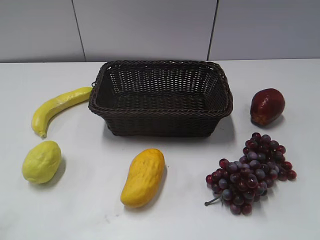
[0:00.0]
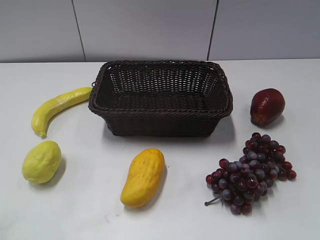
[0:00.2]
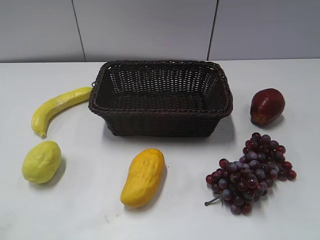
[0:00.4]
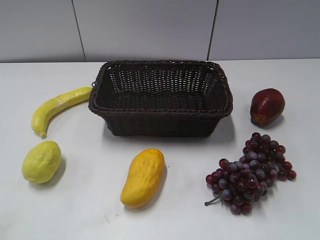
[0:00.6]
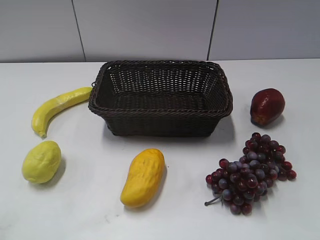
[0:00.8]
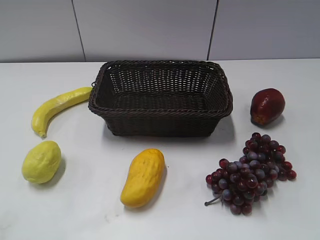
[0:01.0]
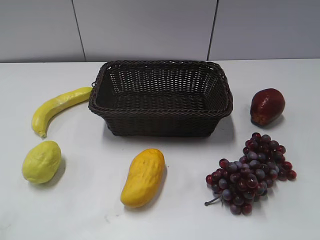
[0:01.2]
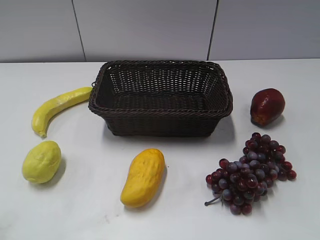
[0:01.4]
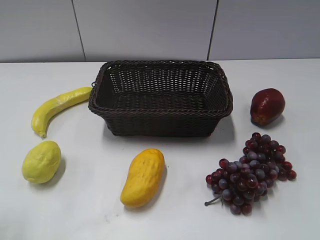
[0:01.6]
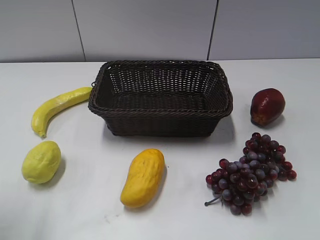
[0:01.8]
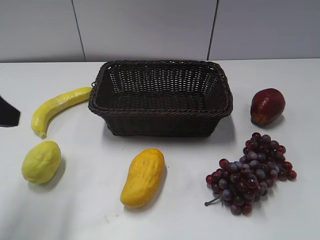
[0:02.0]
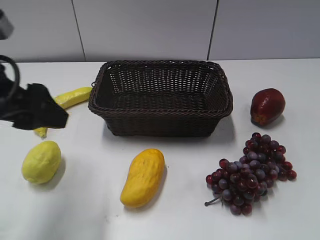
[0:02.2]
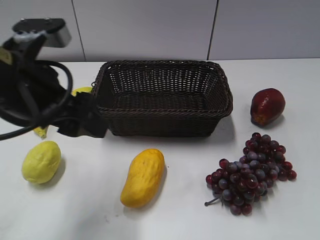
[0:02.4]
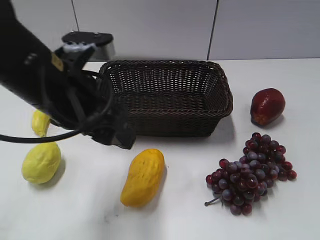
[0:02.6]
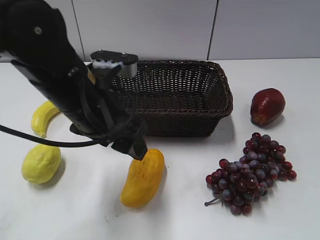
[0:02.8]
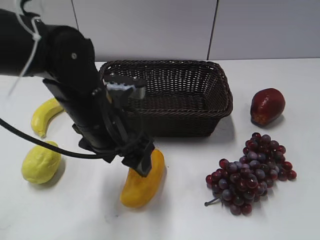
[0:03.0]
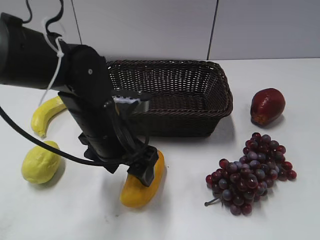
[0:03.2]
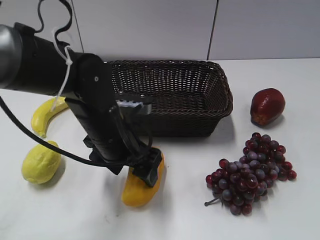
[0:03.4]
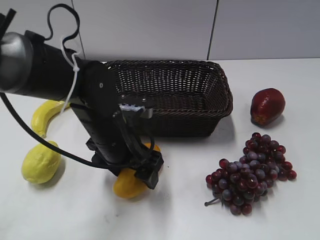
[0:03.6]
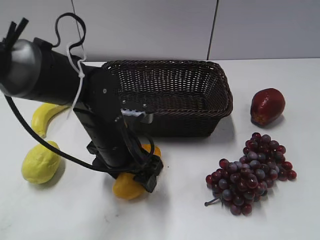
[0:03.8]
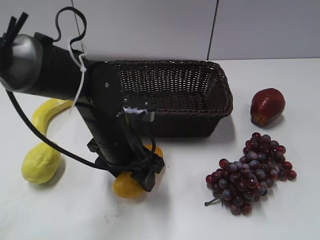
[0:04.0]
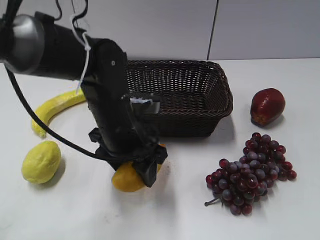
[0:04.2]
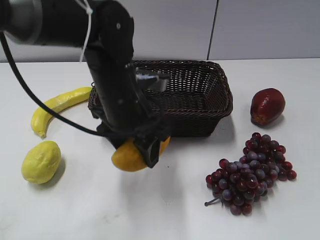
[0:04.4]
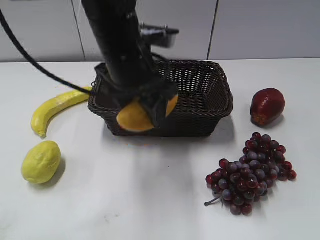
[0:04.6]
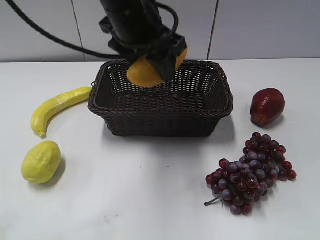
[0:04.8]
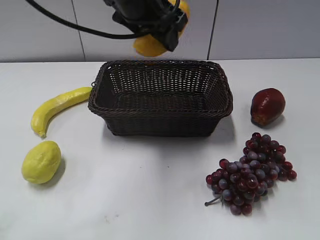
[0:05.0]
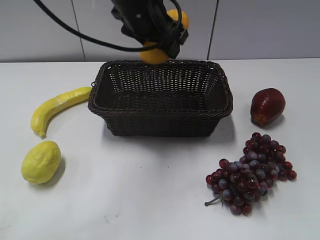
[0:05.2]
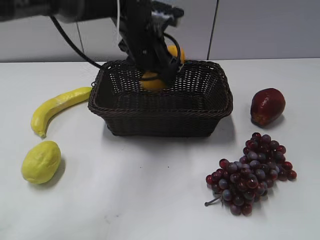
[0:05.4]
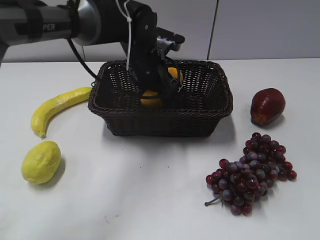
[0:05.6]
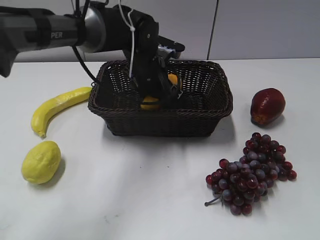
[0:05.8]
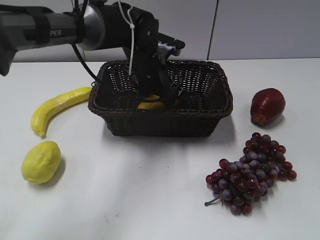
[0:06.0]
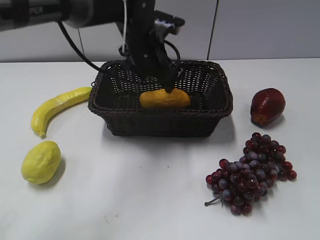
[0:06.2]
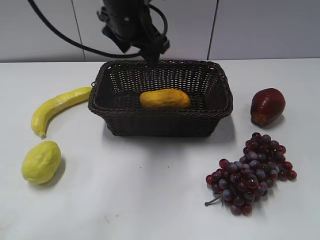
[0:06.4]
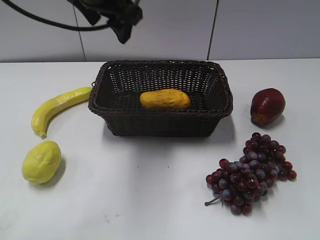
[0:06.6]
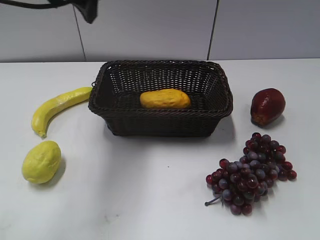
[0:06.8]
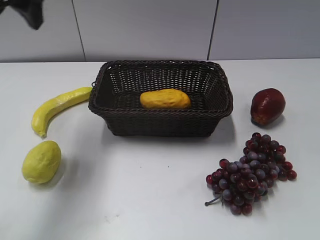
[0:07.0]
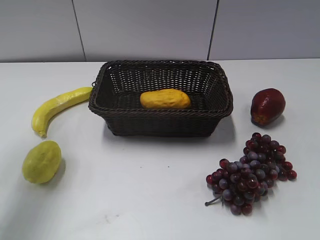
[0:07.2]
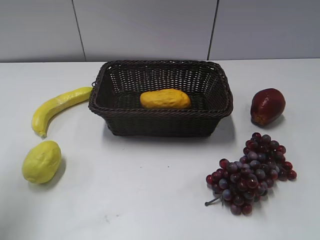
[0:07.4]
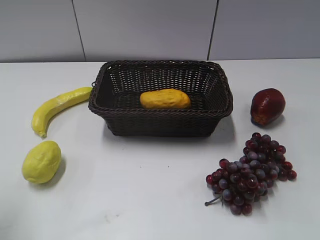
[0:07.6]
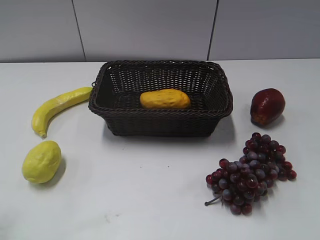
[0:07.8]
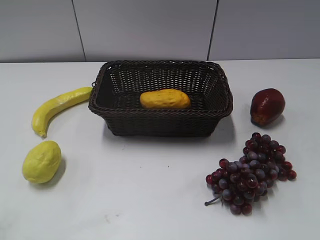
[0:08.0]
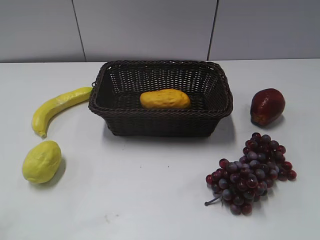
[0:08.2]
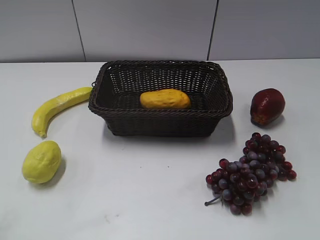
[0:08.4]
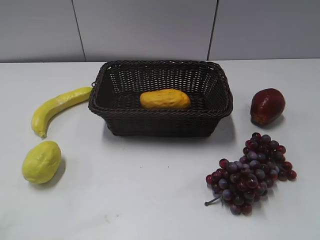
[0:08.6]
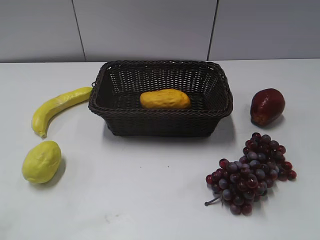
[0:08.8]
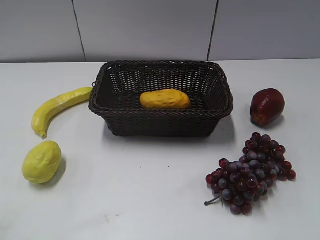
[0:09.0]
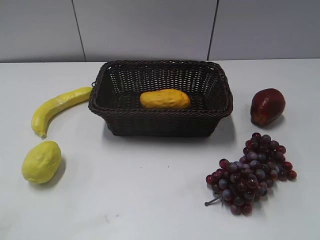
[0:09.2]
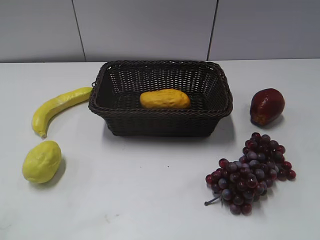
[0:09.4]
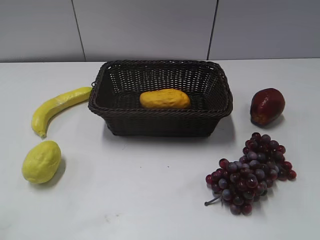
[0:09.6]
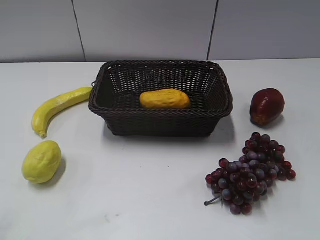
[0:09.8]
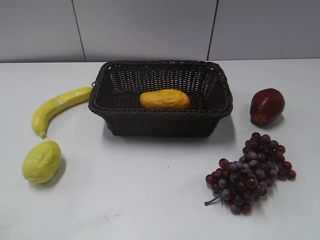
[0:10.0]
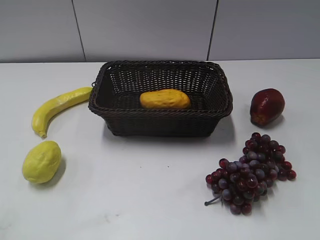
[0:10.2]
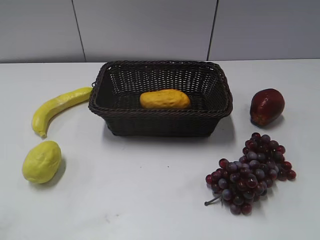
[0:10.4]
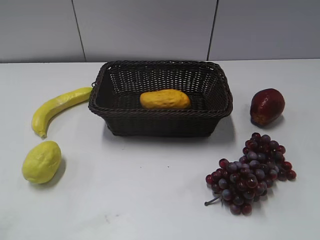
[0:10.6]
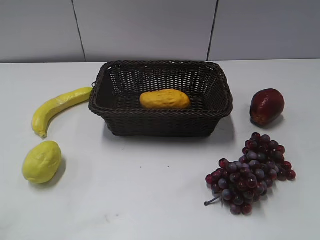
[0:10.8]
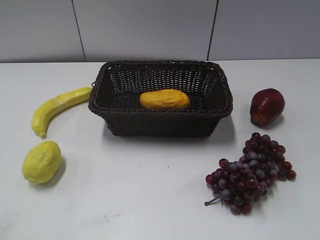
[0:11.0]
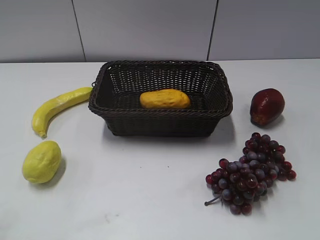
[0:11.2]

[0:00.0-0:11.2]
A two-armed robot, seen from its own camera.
Step, 0:02.0 to 0:03.8: Grasp the mango with left gripper.
Step, 0:04.0 to 0:06.0: Place the mango in the basket with left gripper.
0:01.6 to 0:03.2: The left gripper travels to the right, forward and downward by some 35 cm.
0:03.2 to 0:04.8: The left gripper heads upward and forward, covering about 15 cm, and closes.
0:04.8 to 0:06.4: The left gripper heads forward, covering approximately 10 cm, and travels downward and back again, roughly 15 cm each way.
0:06.4 to 0:08.0: The left gripper goes roughly 40 cm backward and to the left.
0:09.6 to 0:11.2: The two grippers keep their place.

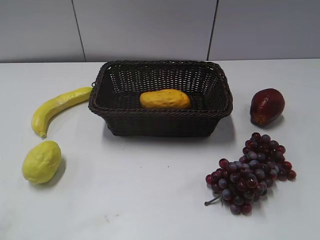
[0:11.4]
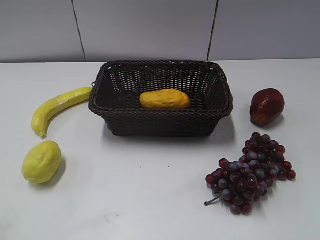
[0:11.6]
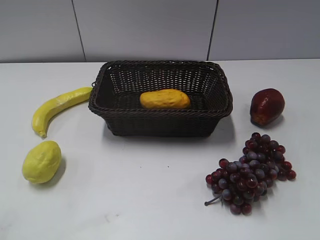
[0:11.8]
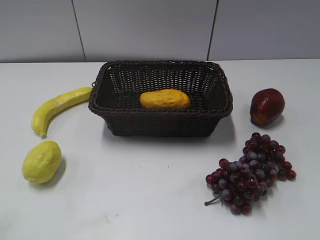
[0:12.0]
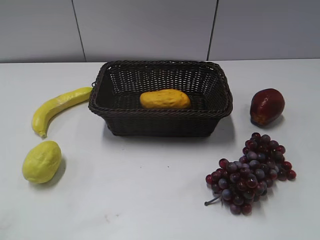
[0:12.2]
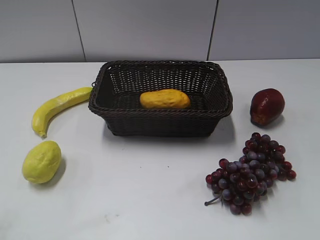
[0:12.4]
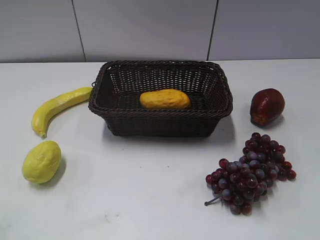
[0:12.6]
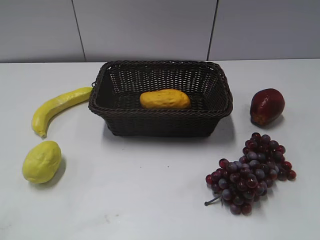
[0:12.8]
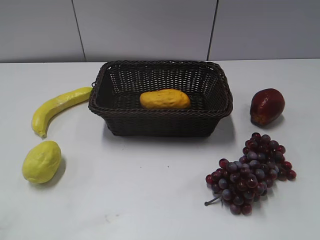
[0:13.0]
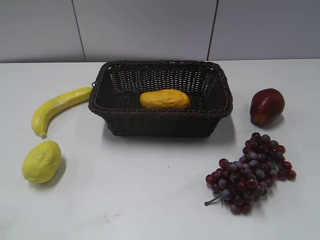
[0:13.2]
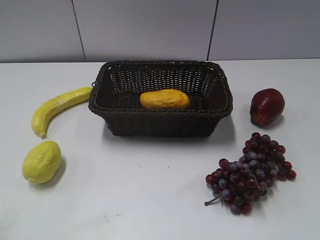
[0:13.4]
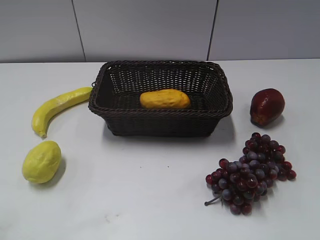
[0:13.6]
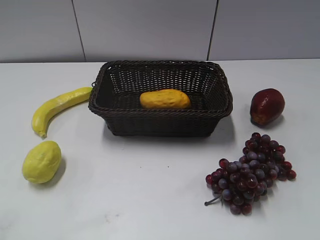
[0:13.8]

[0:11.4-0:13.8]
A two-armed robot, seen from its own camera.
0:11.4 to 0:13.8: Both grippers stay about where they are.

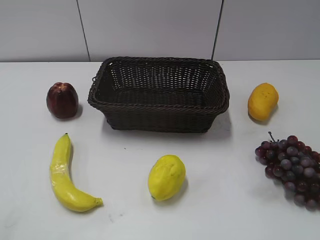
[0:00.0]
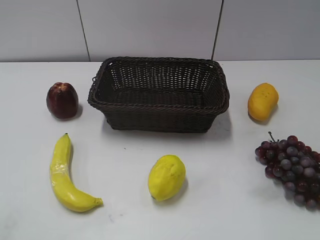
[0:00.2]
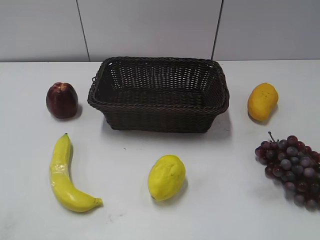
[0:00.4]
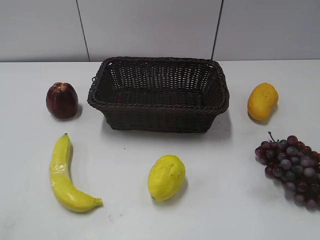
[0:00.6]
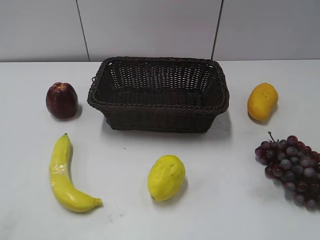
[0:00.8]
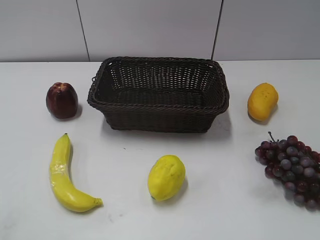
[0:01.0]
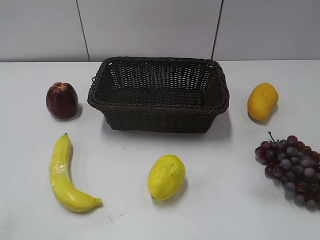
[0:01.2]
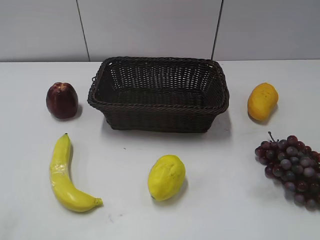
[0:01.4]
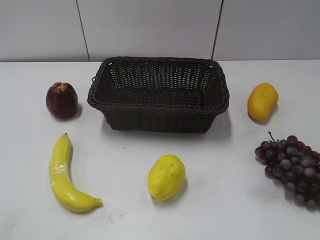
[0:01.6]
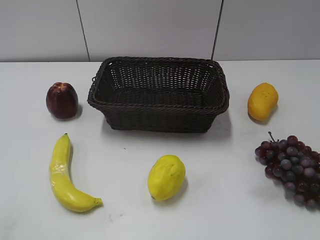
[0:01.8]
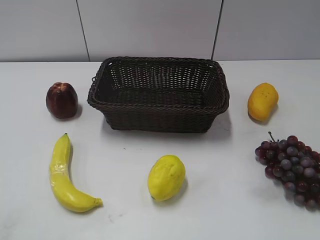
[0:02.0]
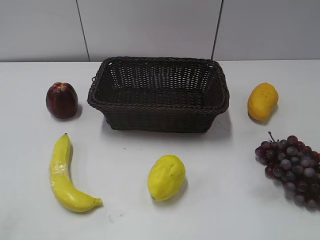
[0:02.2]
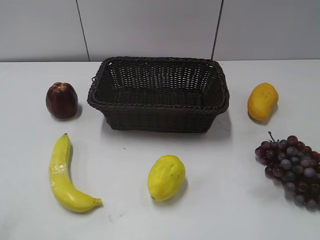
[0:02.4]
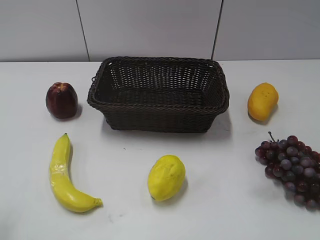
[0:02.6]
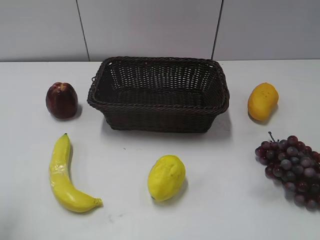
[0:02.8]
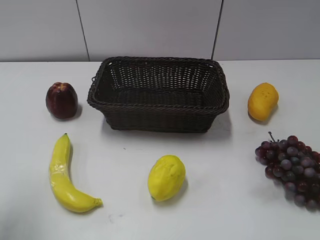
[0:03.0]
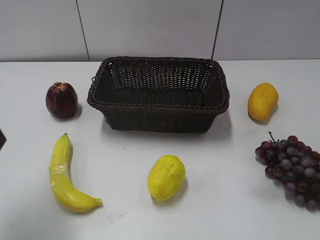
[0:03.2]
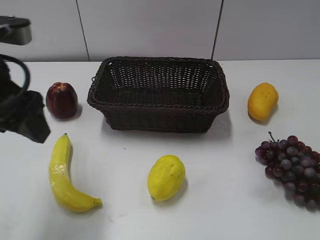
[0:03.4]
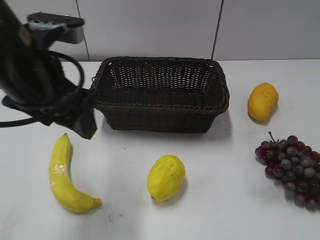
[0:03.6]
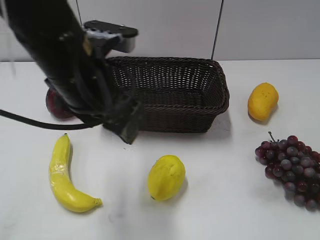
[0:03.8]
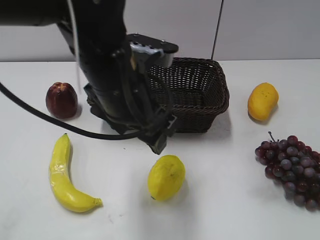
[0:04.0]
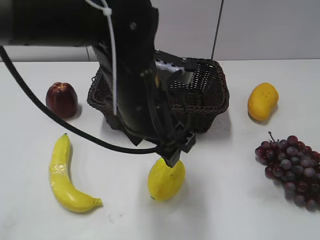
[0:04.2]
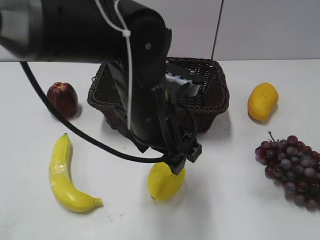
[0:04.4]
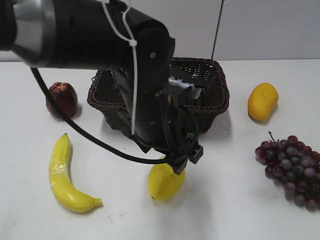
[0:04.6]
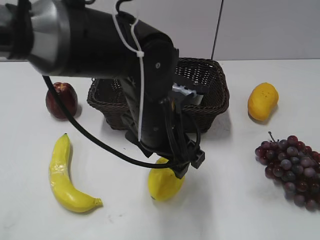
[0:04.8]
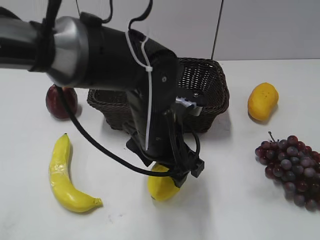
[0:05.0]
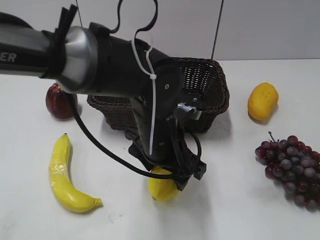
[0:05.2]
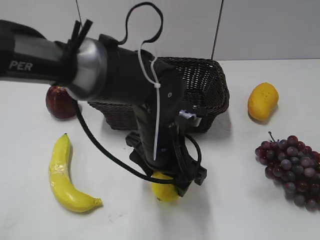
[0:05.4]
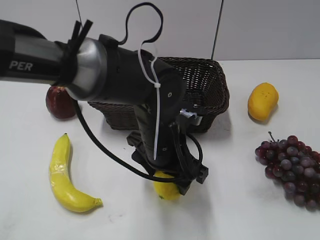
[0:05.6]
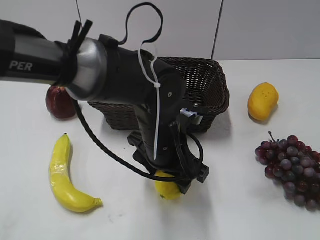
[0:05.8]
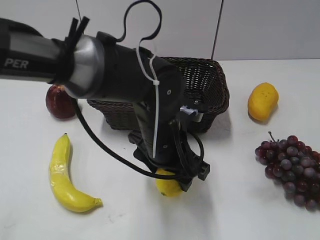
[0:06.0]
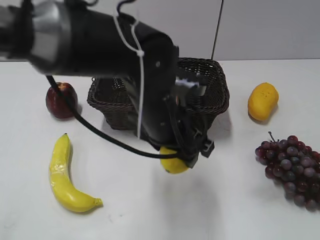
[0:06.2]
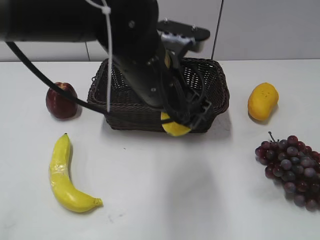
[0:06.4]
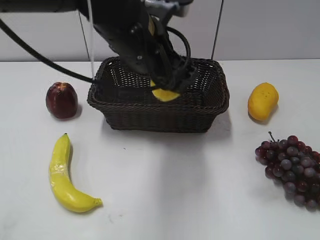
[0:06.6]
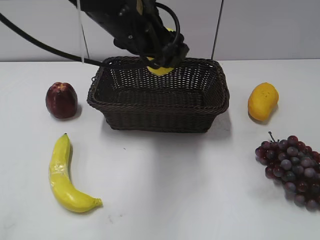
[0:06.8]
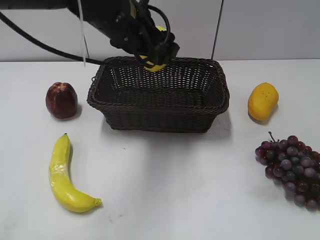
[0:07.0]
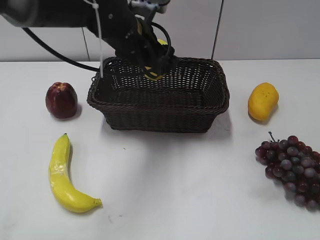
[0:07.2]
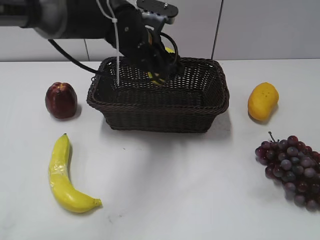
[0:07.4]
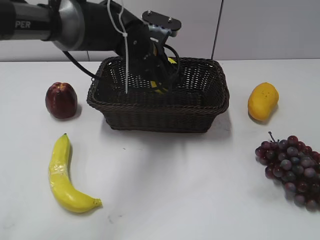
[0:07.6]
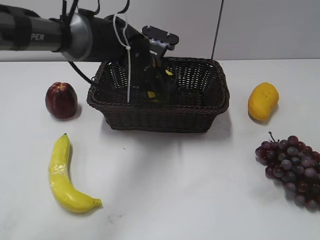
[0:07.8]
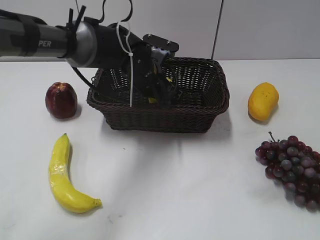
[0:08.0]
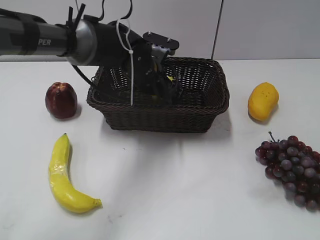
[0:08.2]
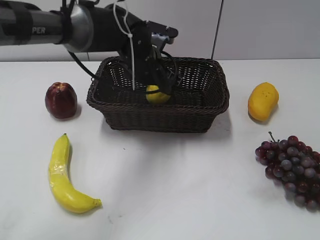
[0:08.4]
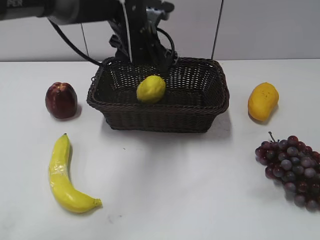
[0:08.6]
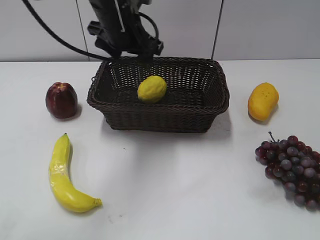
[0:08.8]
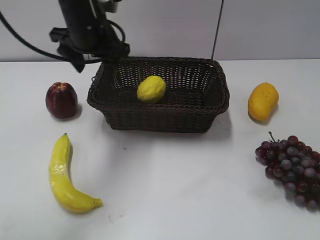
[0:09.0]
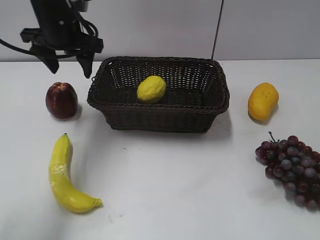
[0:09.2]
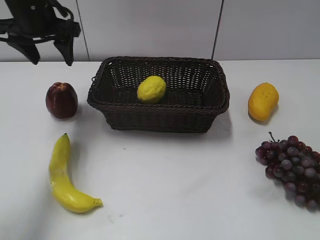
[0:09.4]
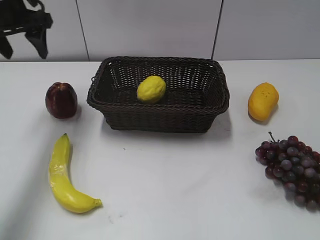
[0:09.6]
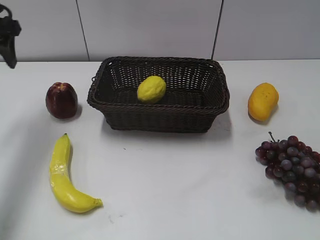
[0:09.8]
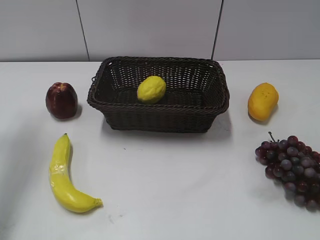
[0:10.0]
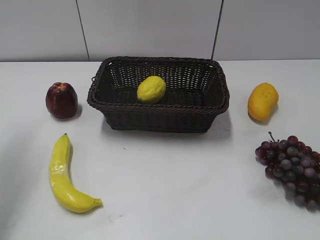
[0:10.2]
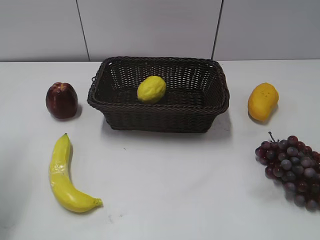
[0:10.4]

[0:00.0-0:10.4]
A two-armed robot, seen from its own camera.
Step, 0:03.2 to 0:06.0: Grasp the lemon with left gripper.
Step, 0:06.2 to 0:08.2: Place the lemon in the basket with left gripper.
0:01.4 to 0:03.0: The left gripper moves forward, about 20 cm.
0:03.0 to 0:04.4: The left gripper is displaced to the right by some 25 cm, and opens its fingers.
0:04.4 to 0:06.0: The left gripper goes about 5 cm downward.
0:06.0 to 0:07.4: The left gripper heads forward and upward, covering about 15 cm.
0:07.4 to 0:09.0: The left gripper goes roughly 10 cm to the left, and opens, then closes once more.
0:09.0 to 0:10.4: The left gripper moves to the left and backward, roughly 25 cm.
